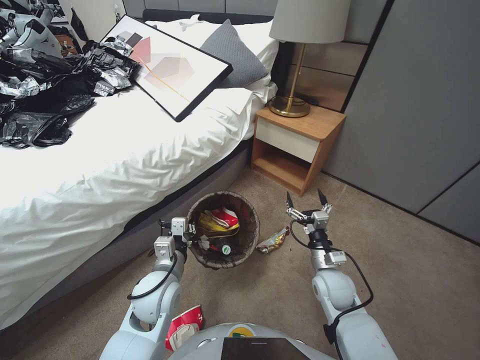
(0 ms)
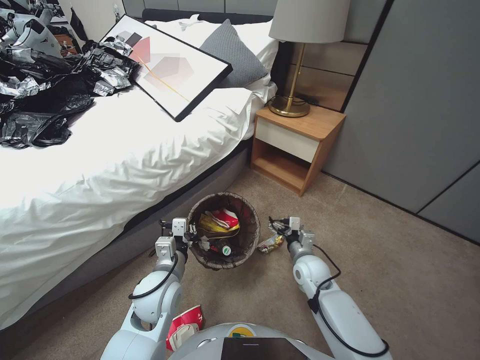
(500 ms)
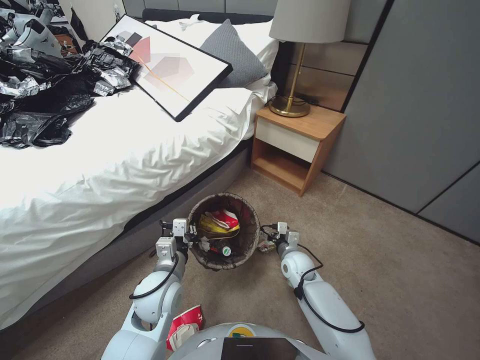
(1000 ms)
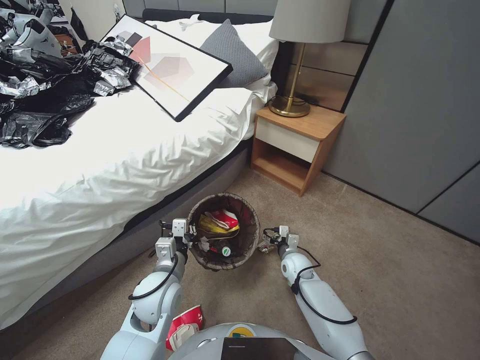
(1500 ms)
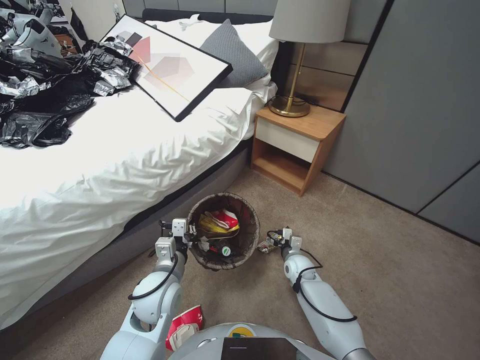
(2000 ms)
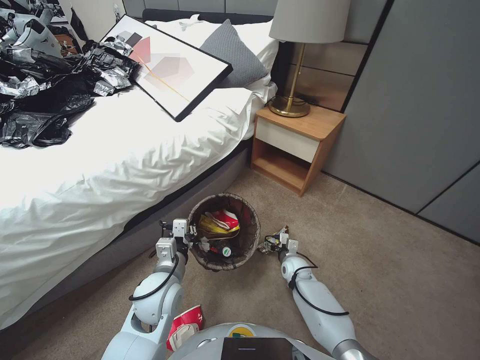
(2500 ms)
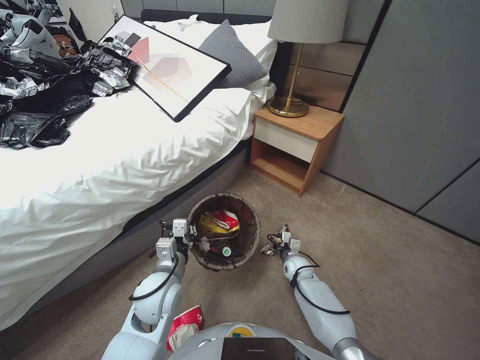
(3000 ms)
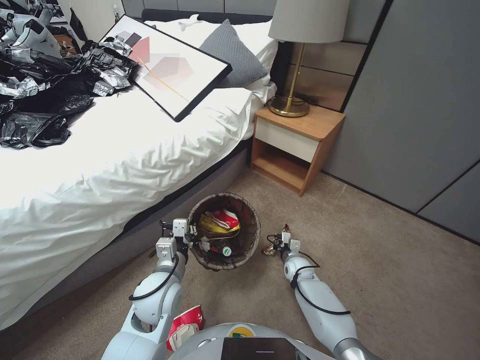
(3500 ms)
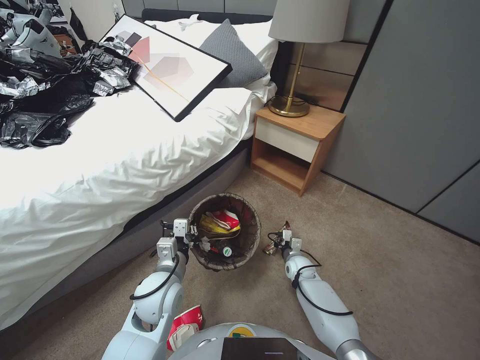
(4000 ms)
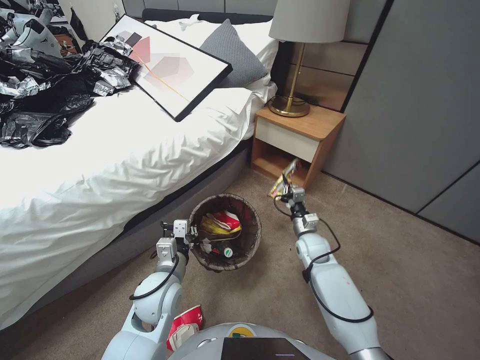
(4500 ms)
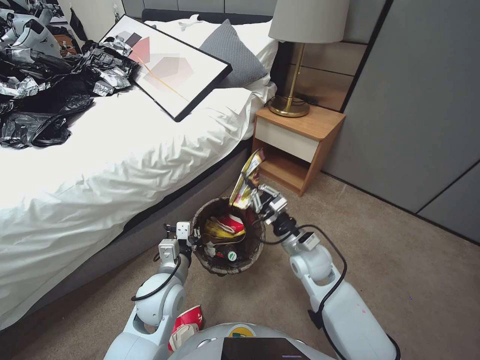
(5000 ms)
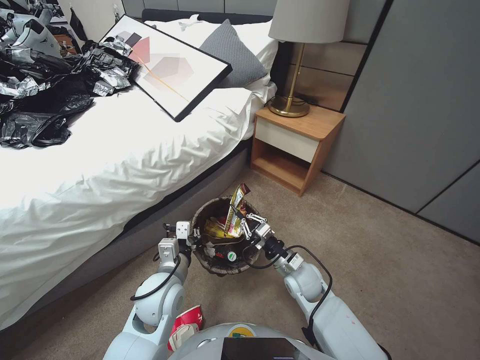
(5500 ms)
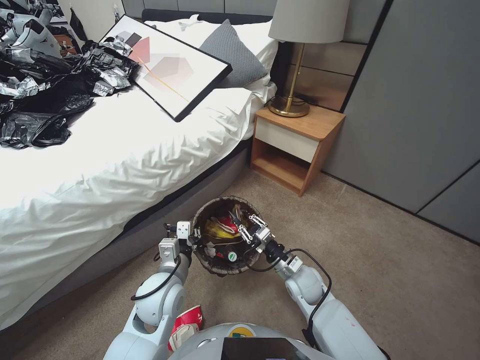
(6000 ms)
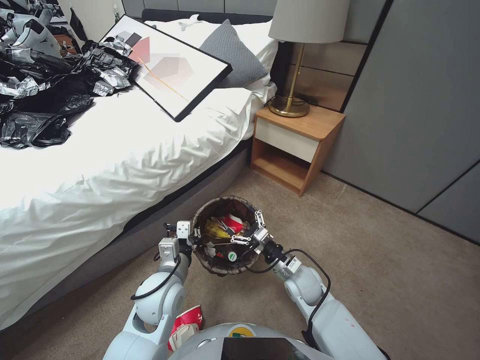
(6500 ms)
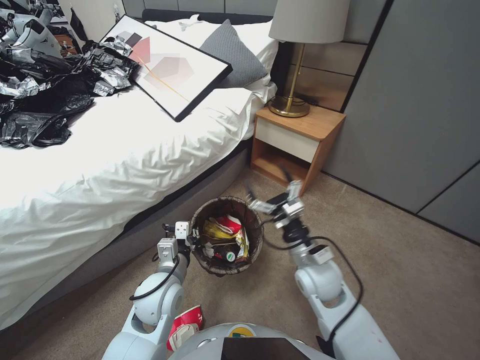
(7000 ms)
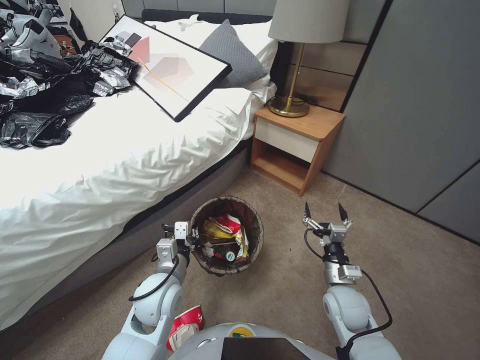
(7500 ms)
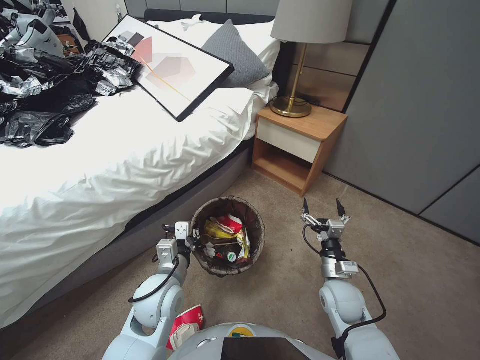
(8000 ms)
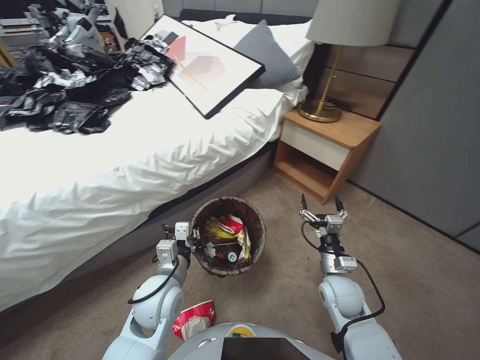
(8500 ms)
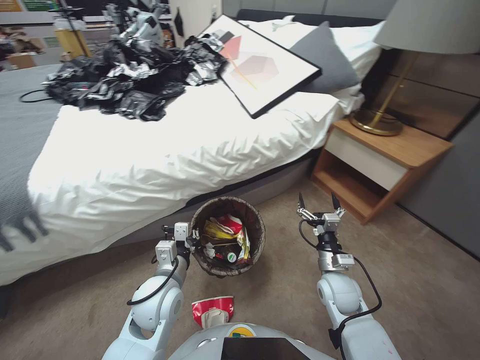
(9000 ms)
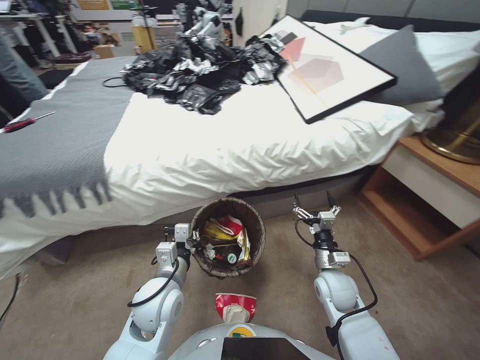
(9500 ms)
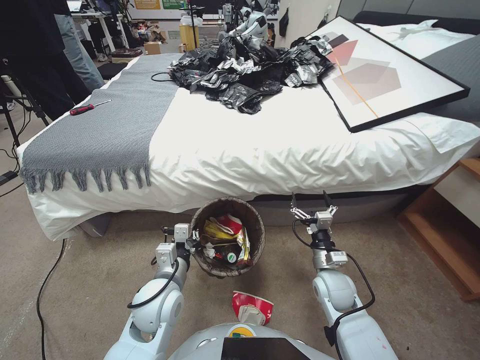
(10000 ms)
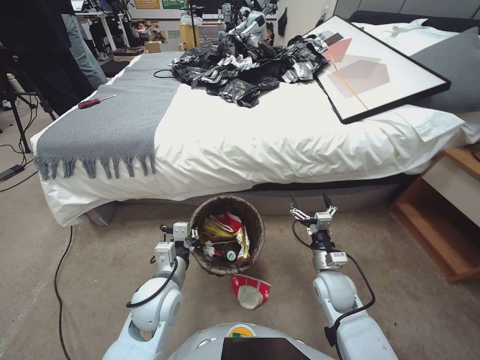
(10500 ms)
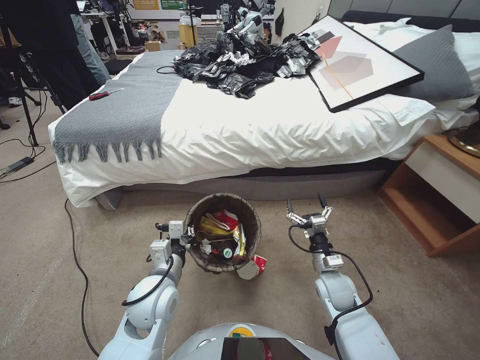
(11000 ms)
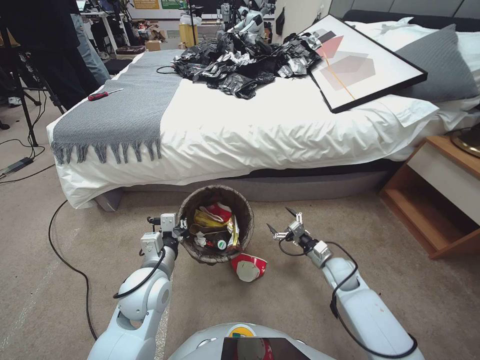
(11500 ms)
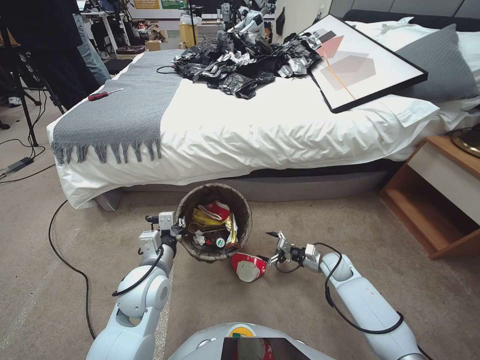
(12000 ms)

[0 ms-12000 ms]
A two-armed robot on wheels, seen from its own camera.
Task of the whole recording: Pick up the trash bin, then pick up the garbage from the floor and place it into the trash bin.
0 ms to 2000 ms: The right gripper heads downward and forward, covering roughly 15 cm.
2000 ms to 4000 ms: The right gripper changes place by approximately 5 cm, and closes its fingers.
4000 ms to 6000 ms: The right gripper goes some 15 cm upward and backward.
6000 ms to 8000 ms: The right gripper heads to the right, covering some 10 cm, reaches roughly 10 cm upward, then returns, and opens its fingers.
10000 ms to 12000 ms: The right gripper shifts about 15 cm forward, to the right and downward.

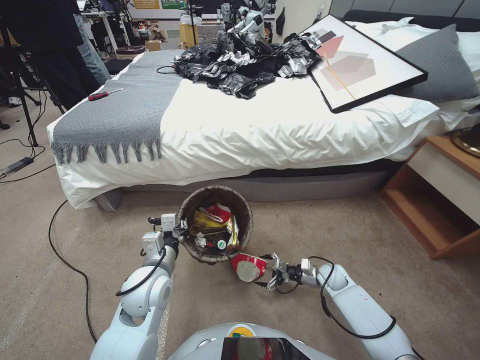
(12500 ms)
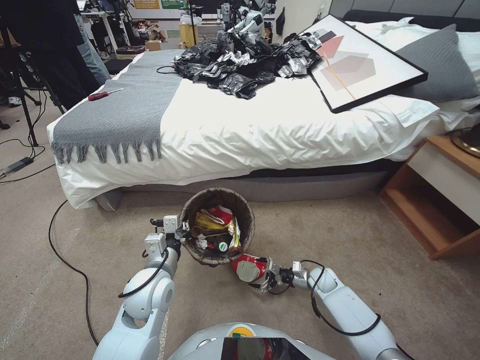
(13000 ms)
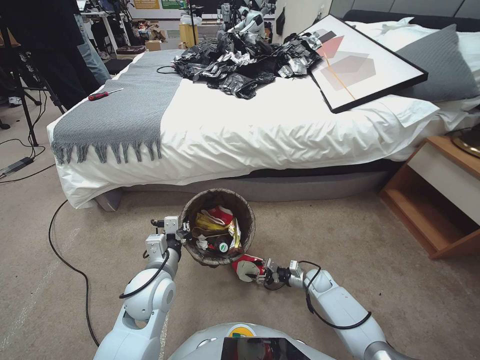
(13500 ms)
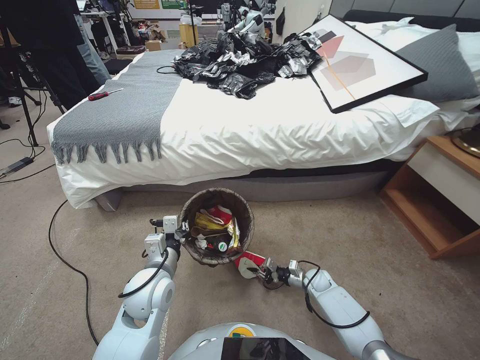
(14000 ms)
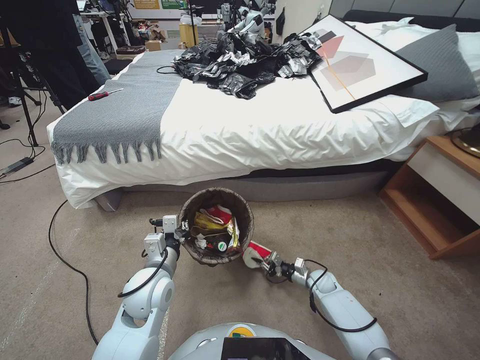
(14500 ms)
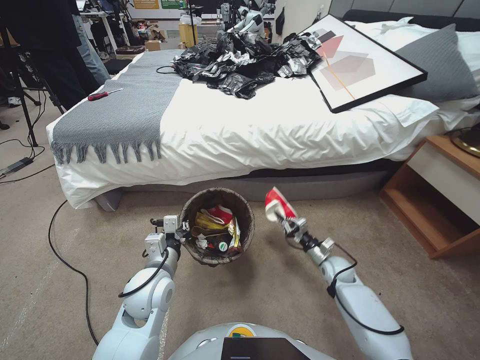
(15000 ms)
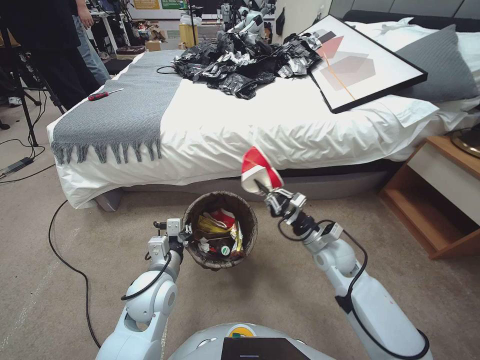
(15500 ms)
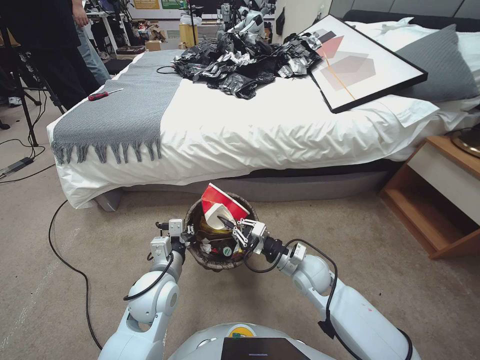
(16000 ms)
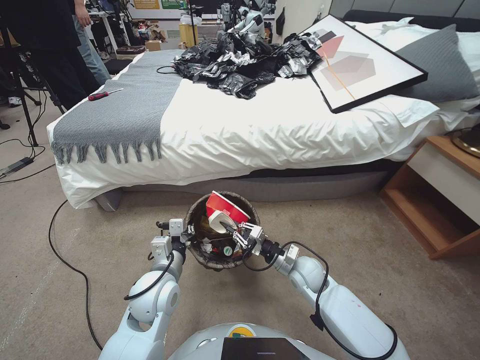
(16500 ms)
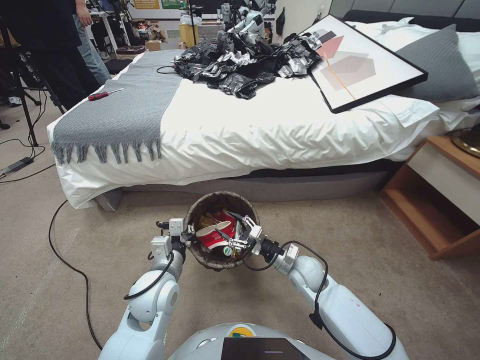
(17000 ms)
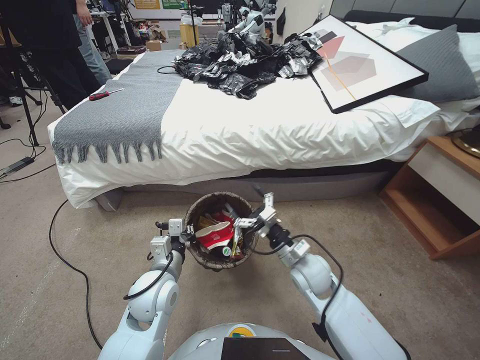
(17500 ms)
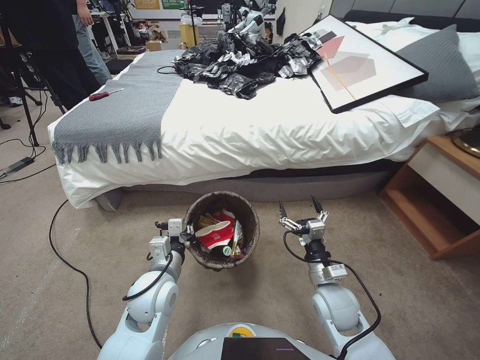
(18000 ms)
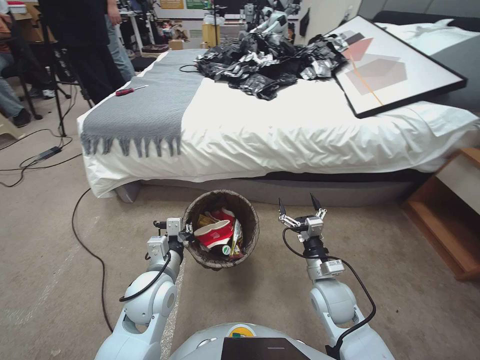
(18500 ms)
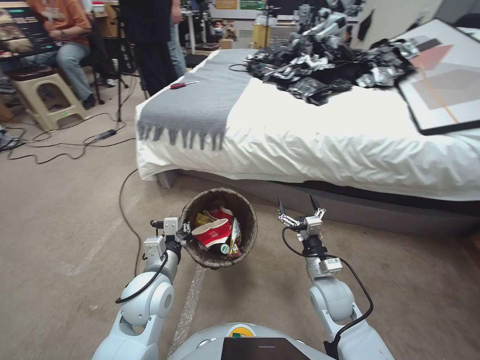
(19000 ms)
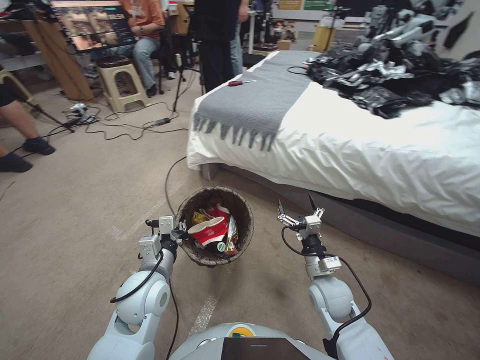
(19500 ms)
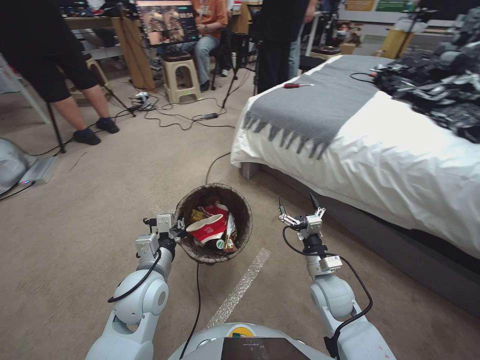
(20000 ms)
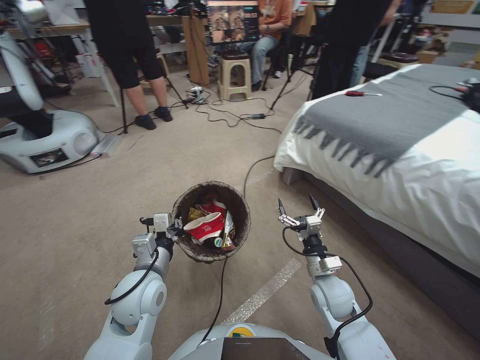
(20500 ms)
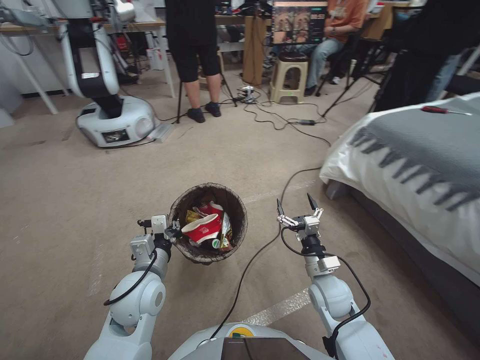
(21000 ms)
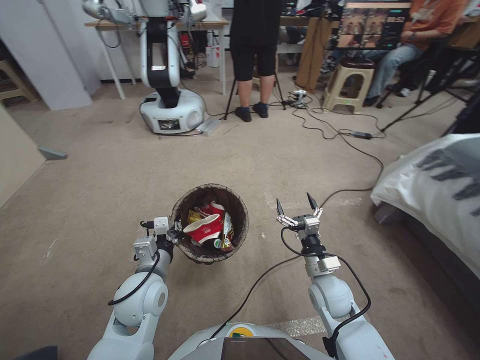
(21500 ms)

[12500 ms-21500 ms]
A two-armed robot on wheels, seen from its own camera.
Task of the whole recording: Pick up the trash bin, then pick up the garbage from the floor and place it into the trash bin.
12500 ms to 14500 ms: The right gripper goes about 5 cm downward, and closes up.
14500 ms to 17000 ms: The right gripper goes some 20 cm upward and to the left, and opens its fingers.
17000 ms to 19500 ms: The right gripper shifts approximately 5 cm backward, and opens up.

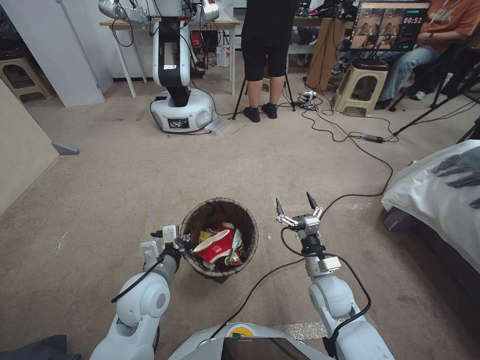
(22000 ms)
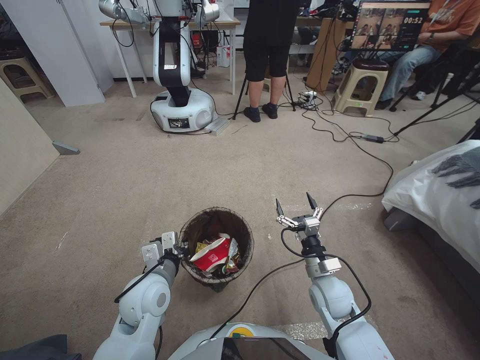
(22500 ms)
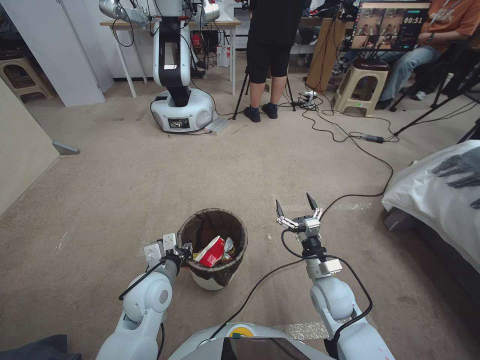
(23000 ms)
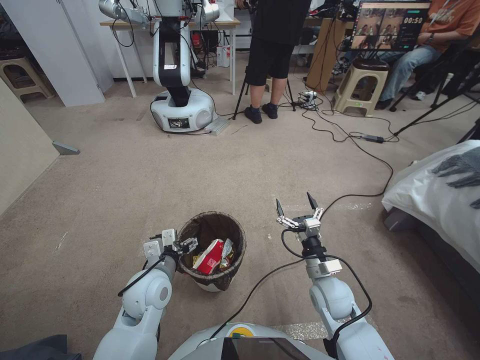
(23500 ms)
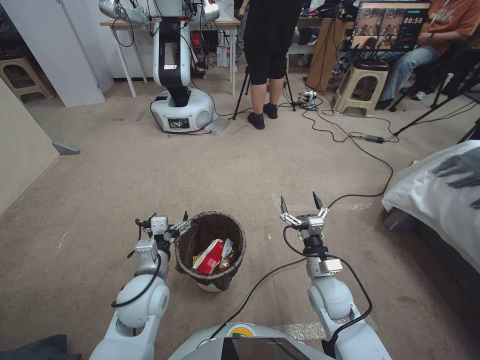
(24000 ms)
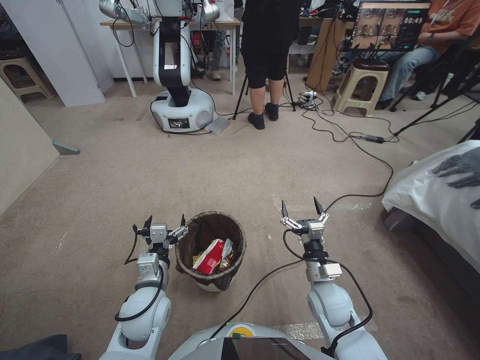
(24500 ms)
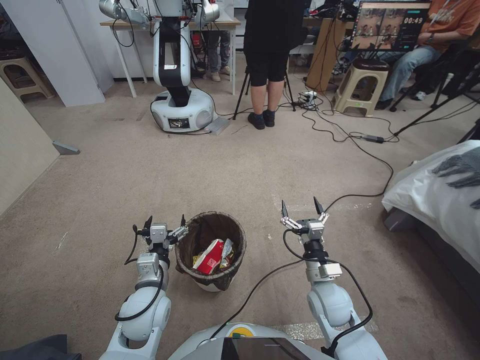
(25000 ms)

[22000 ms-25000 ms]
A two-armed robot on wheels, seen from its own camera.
Task of the whole recording: Pick up the trash bin, then pick up the garbage from the floor and place it into the trash bin.
22000 ms to 23500 ms: The left gripper opens.
